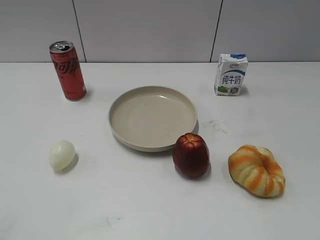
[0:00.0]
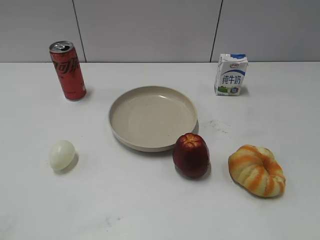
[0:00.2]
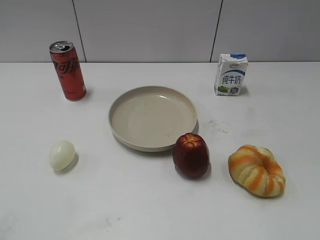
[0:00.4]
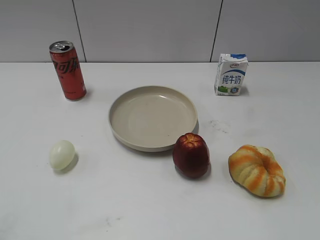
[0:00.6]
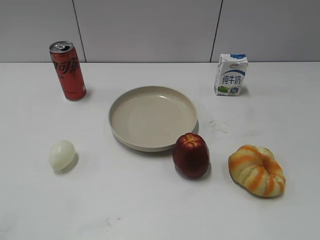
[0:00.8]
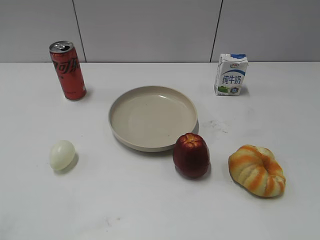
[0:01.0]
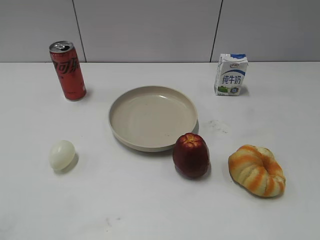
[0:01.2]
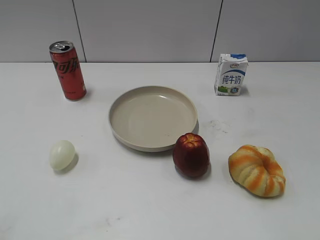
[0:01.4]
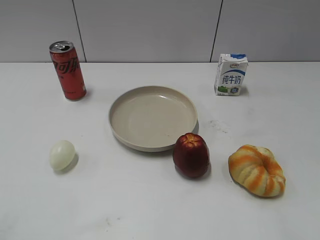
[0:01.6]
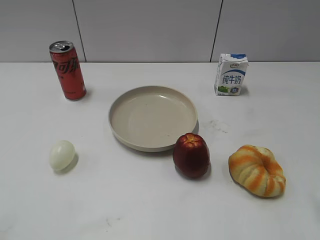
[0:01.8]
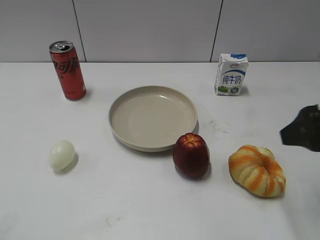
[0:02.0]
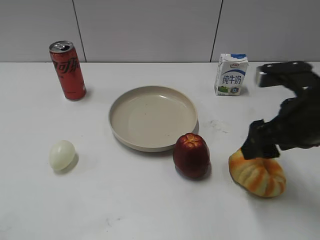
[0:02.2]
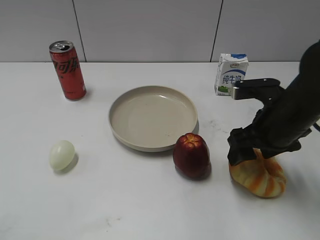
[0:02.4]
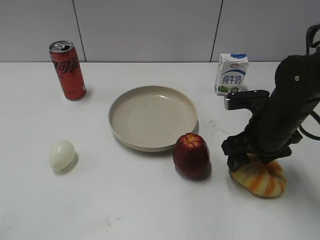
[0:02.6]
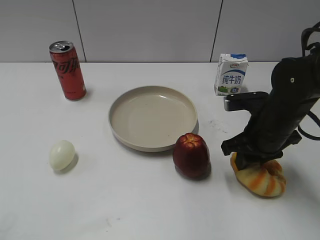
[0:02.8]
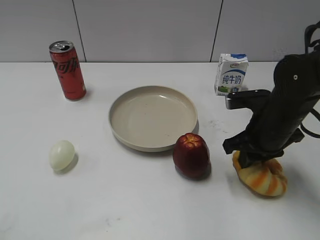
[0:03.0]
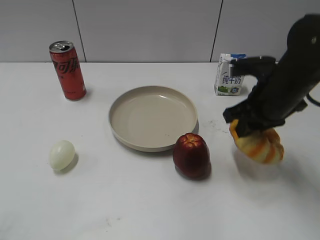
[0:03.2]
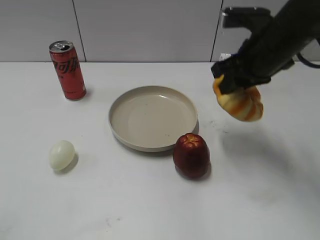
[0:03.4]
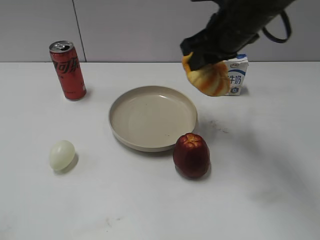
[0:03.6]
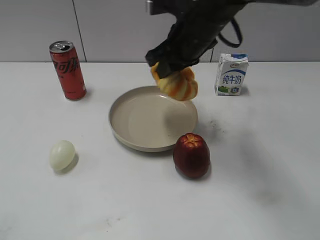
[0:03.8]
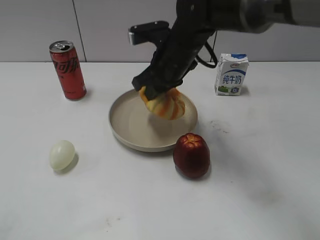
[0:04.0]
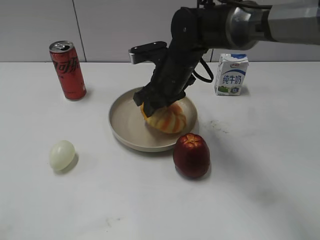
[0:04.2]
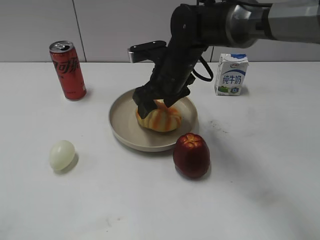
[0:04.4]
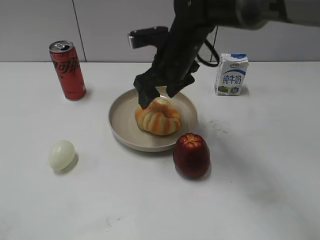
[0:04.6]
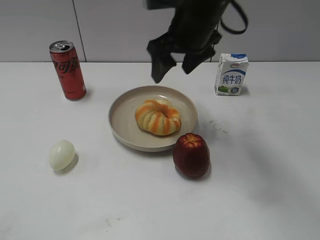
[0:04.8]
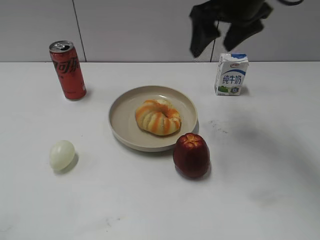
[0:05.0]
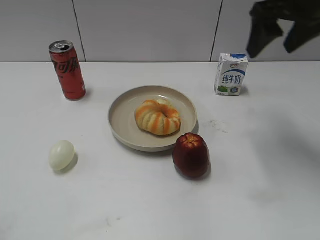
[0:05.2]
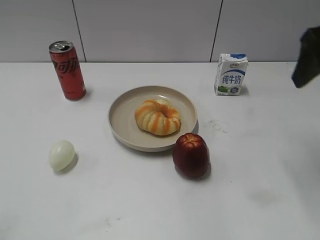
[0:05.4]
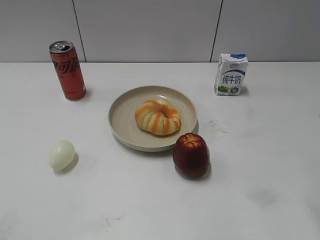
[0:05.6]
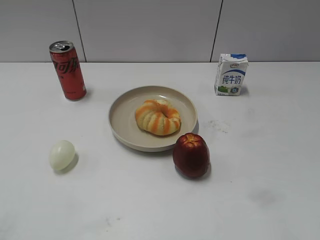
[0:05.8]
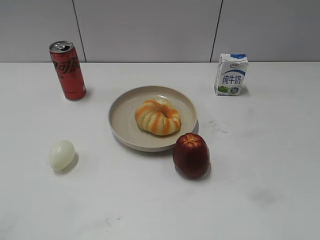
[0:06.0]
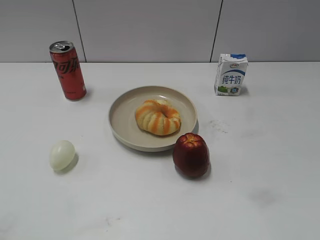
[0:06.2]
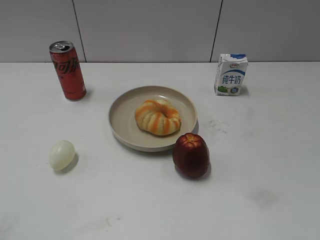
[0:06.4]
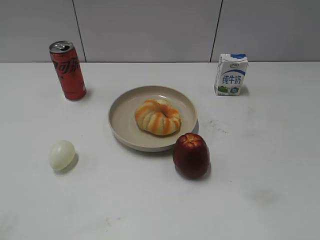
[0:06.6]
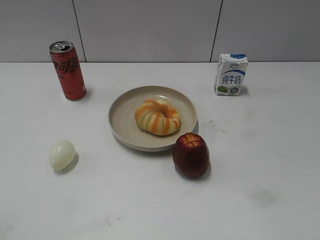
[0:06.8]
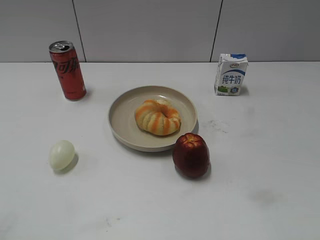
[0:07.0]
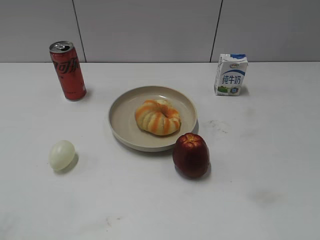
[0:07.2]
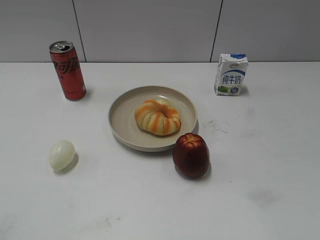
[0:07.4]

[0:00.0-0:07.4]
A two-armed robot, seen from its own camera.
Step, 0:01.2 to 0:02.8: Grasp the round bread with right gripper.
Step, 0:03.0 to 0:04.6: Place the round bread on the plate with right gripper.
0:01.4 to 0:03.0: The right gripper is displaced forward, downward and to the left by roughly 35 cm, and closes its fingers.
0:03.0 to 0:04.4: The right gripper shifts some 20 cm to the left and forward, and opens its fingers.
0:04.4 to 0:06.0: The right gripper moves backward, to the right and upward, some 40 cm.
